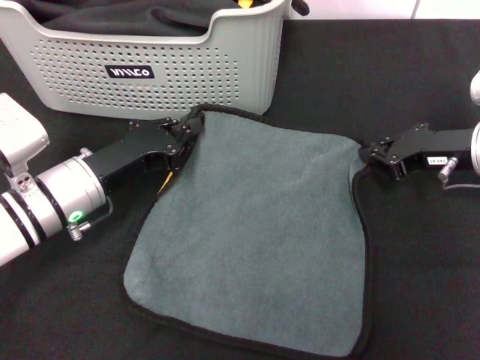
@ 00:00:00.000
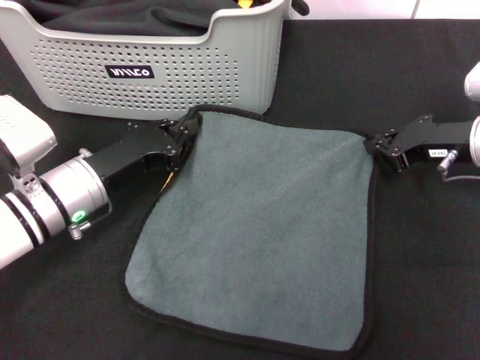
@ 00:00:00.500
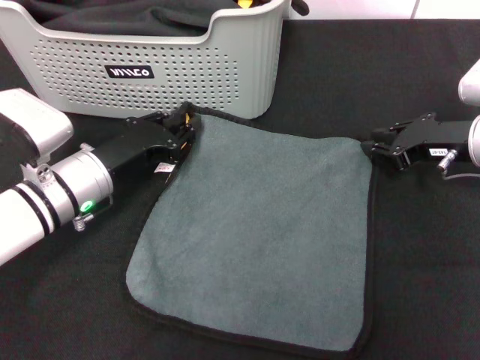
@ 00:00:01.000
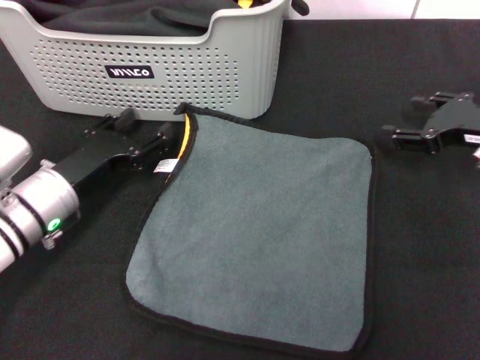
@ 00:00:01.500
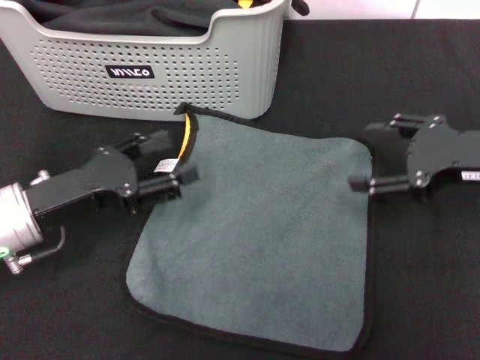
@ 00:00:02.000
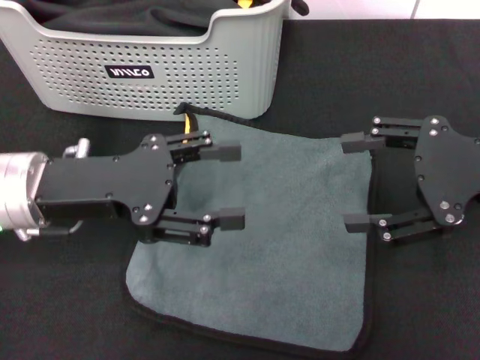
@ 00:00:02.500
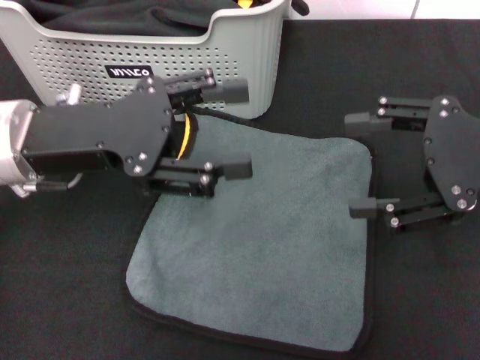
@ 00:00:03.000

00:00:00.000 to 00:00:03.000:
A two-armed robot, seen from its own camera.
Task of the whole recording: pick up the towel from the storage box and lay it flat on the black tablecloth.
00:00:00.000 to 00:00:01.500: The left gripper opens its fingers. Meanwhile the right gripper opens its fingers.
00:00:01.500 to 00:00:03.000: The right gripper is displaced upward and backward by about 15 cm; the left gripper shifts roughly 15 cm upward.

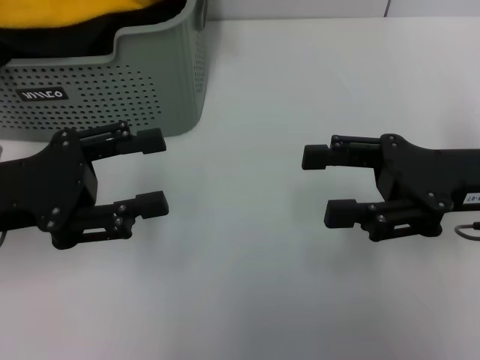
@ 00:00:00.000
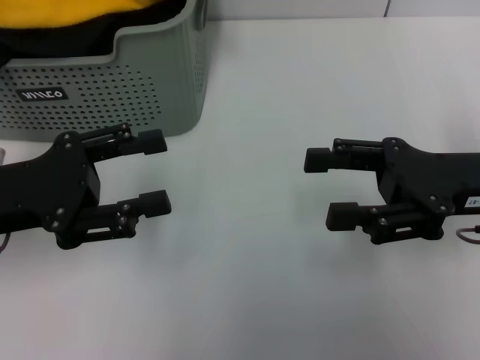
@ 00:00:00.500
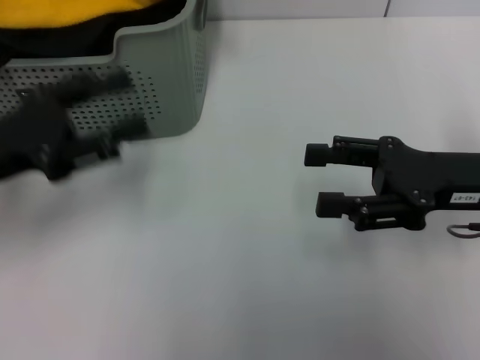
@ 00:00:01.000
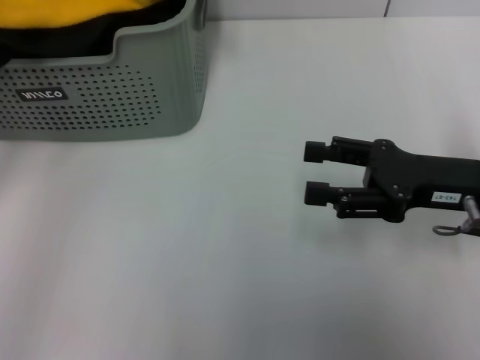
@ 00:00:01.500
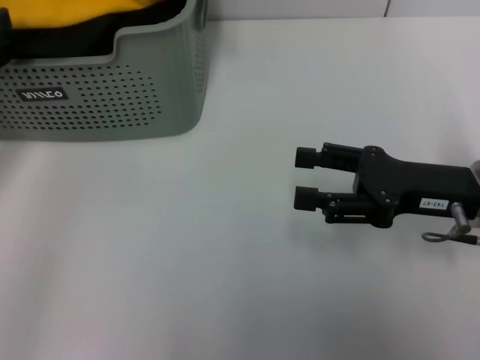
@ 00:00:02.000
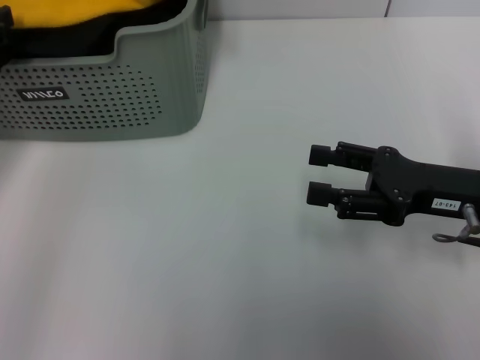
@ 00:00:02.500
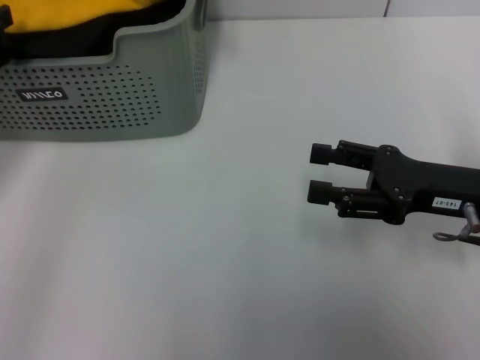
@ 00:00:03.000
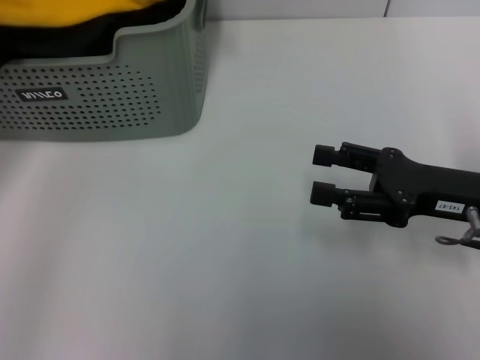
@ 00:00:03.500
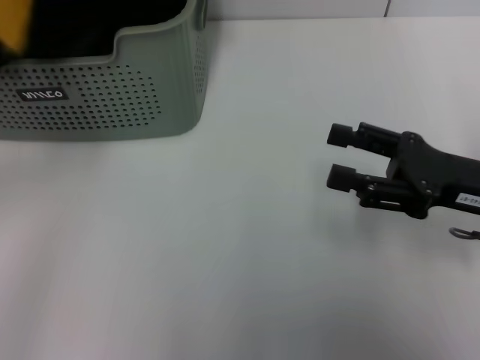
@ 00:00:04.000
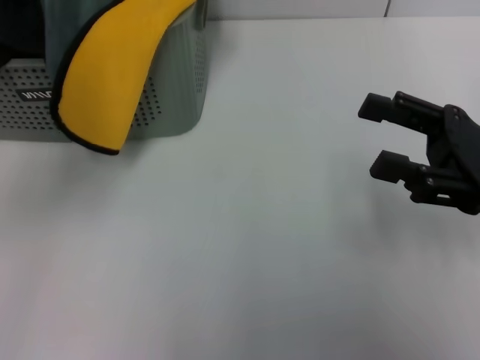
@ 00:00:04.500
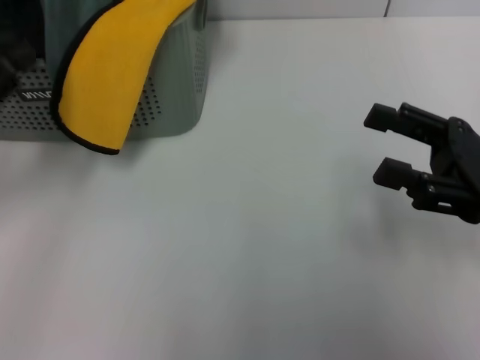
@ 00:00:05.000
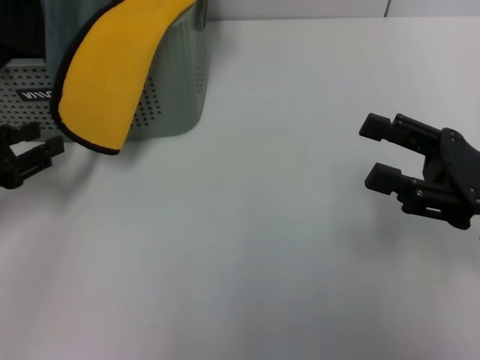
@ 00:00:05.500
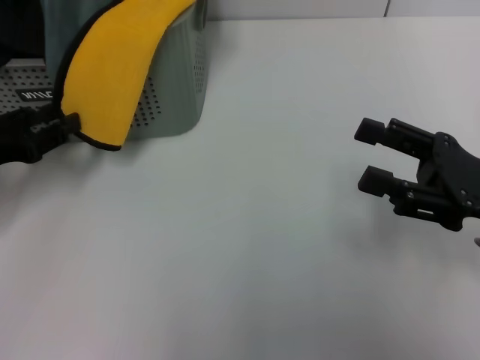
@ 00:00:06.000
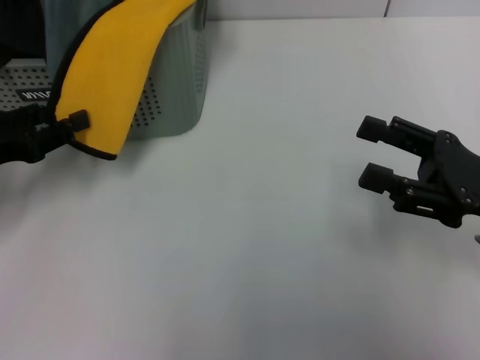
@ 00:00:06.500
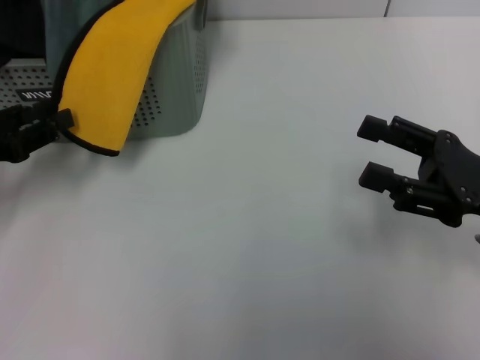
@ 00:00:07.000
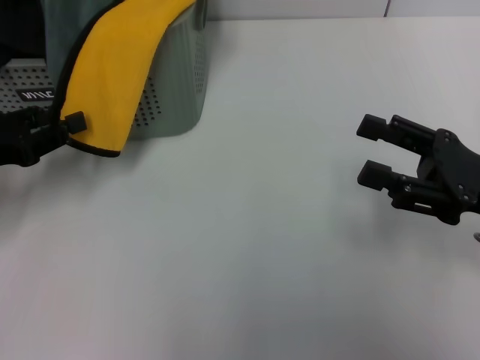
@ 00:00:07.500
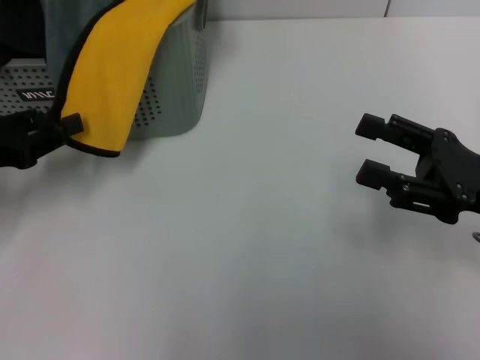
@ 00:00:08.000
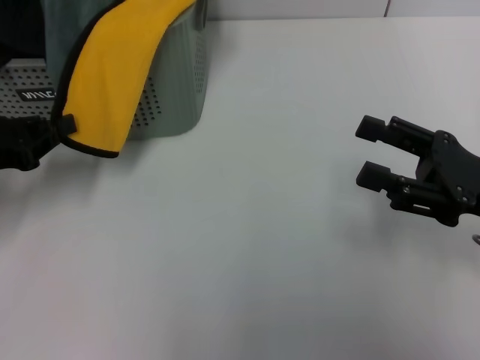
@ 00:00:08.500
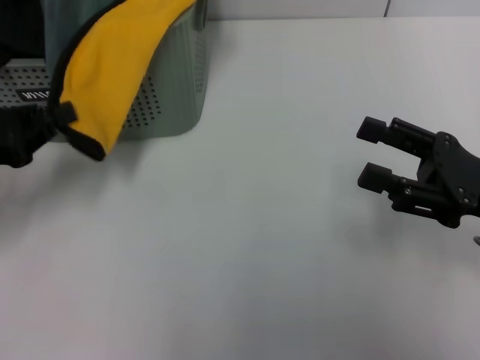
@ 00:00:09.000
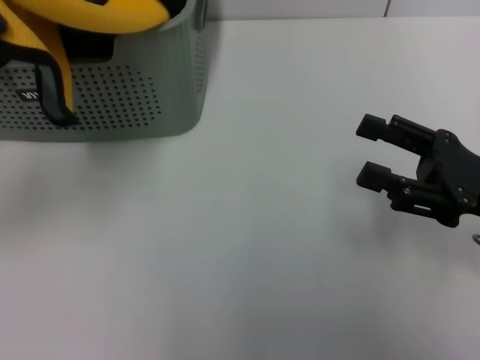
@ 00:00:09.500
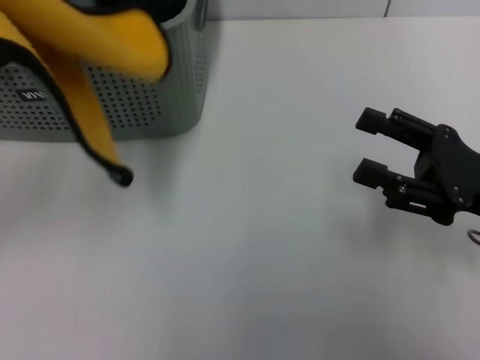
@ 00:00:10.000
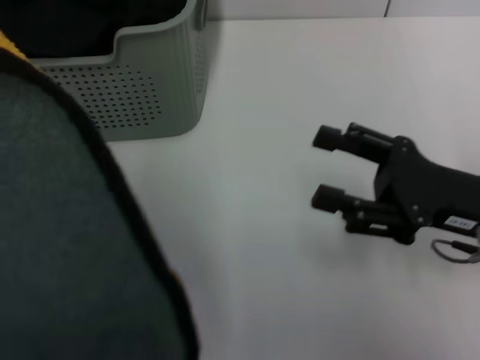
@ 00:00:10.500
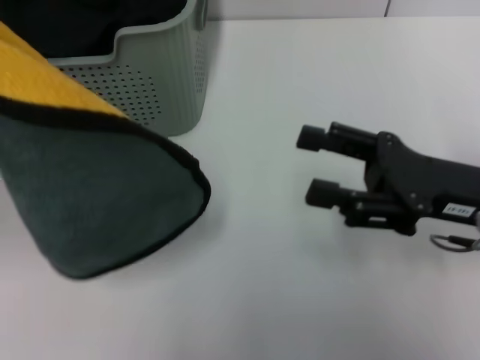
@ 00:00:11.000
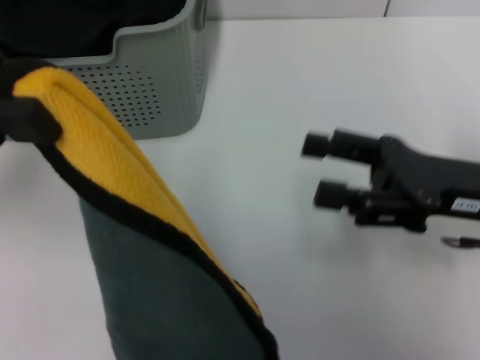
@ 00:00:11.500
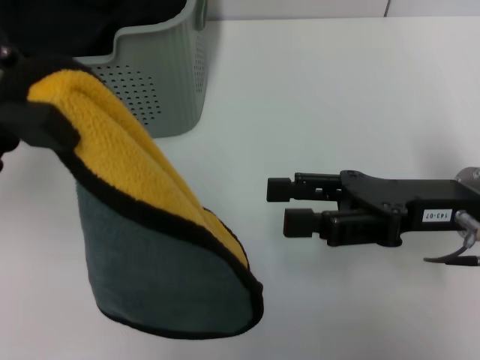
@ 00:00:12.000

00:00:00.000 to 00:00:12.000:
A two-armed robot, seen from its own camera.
Task of the whole recording: pick up the towel from the storage box and lay it flat on the table.
Step, 00:00:00.000 to 00:00:09.000: Pick up a towel with the left gripper.
00:00:00.000 to 00:00:02.000: The left gripper is displaced to the left by approximately 5 cm.
00:00:02.000 to 00:00:04.000: The left gripper travels upward by roughly 5 cm, and closes its fingers.
00:00:04.000 to 00:00:06.000: The left gripper heads downward, covering some 15 cm, and opens up.
00:00:06.000 to 00:00:08.000: The grippers make only small movements.
00:00:08.000 to 00:00:10.000: The left gripper travels upward by approximately 15 cm, and closes.
00:00:10.000 to 00:00:12.000: The left gripper heads to the right, covering some 5 cm. The right gripper shifts approximately 5 cm to the left.

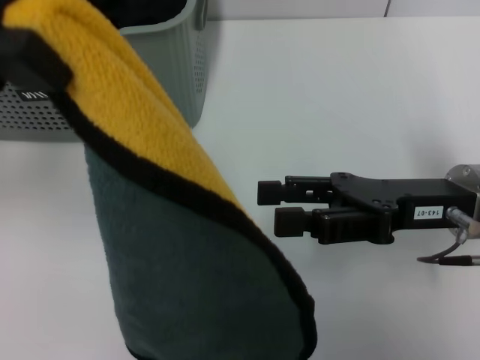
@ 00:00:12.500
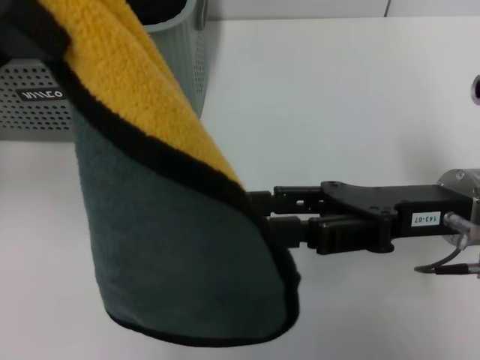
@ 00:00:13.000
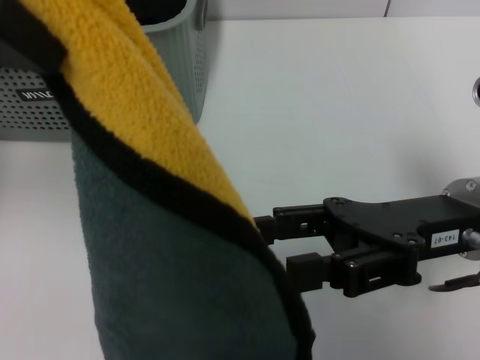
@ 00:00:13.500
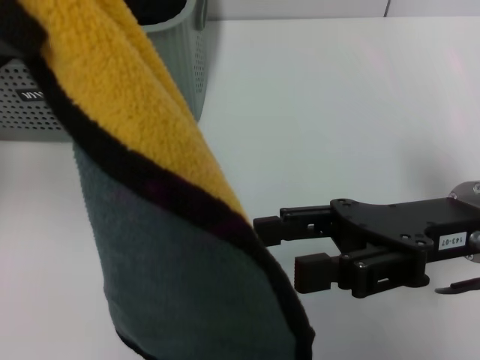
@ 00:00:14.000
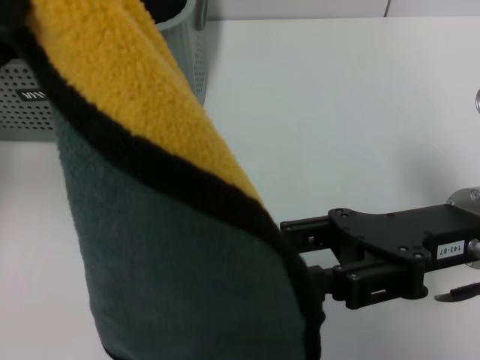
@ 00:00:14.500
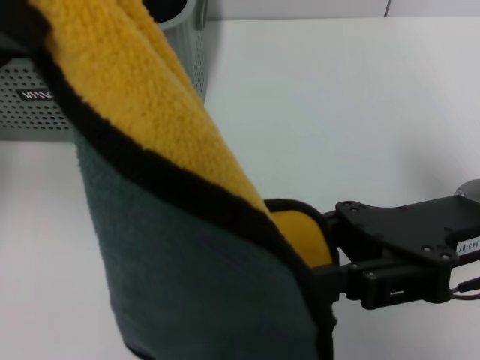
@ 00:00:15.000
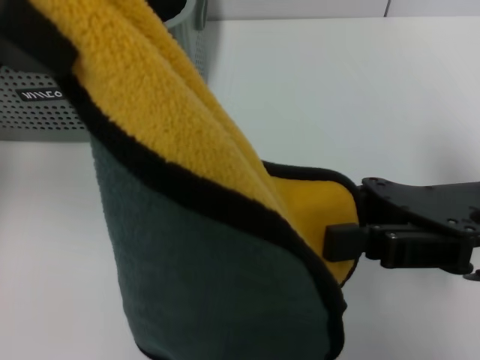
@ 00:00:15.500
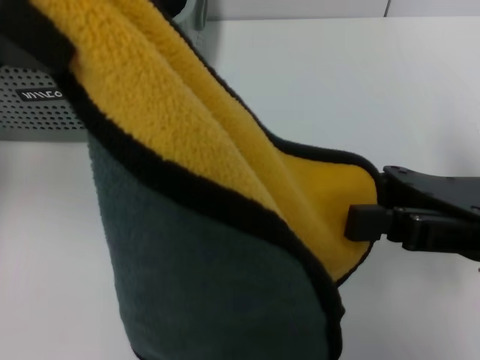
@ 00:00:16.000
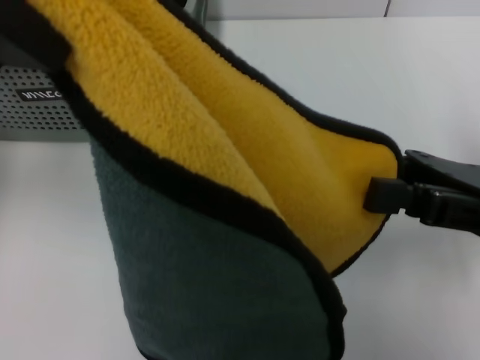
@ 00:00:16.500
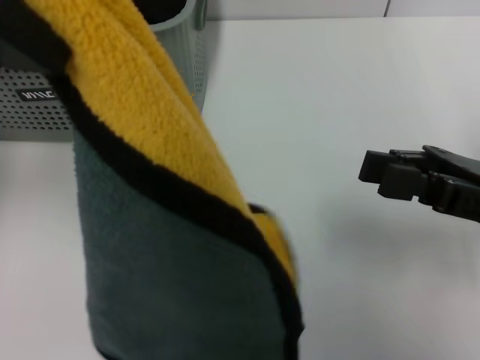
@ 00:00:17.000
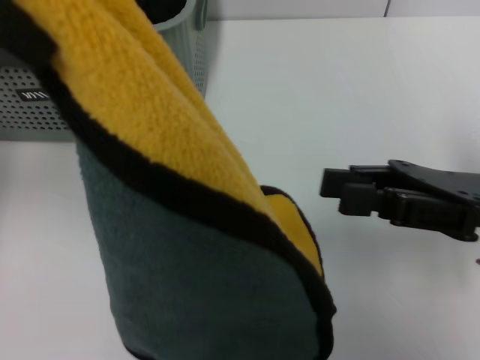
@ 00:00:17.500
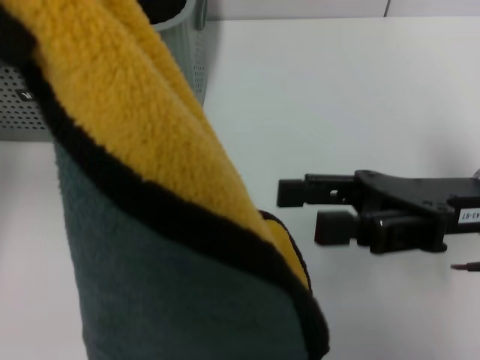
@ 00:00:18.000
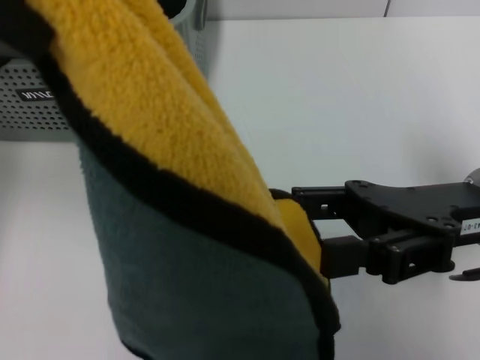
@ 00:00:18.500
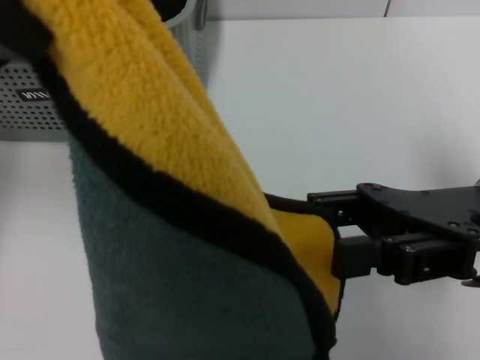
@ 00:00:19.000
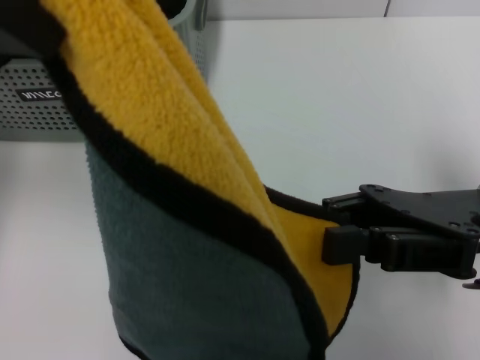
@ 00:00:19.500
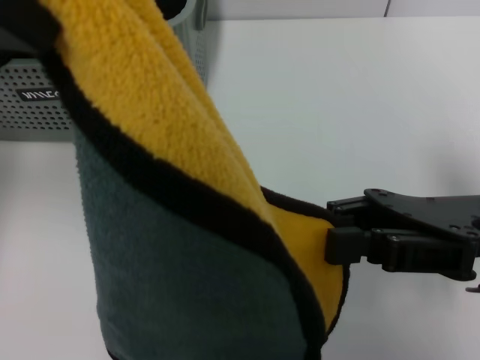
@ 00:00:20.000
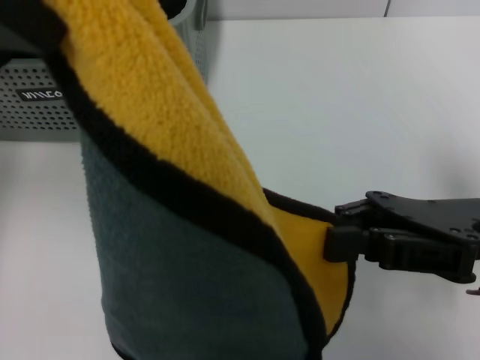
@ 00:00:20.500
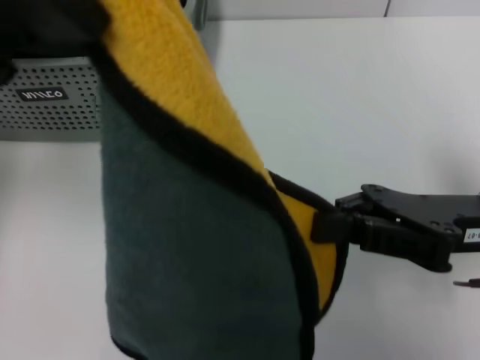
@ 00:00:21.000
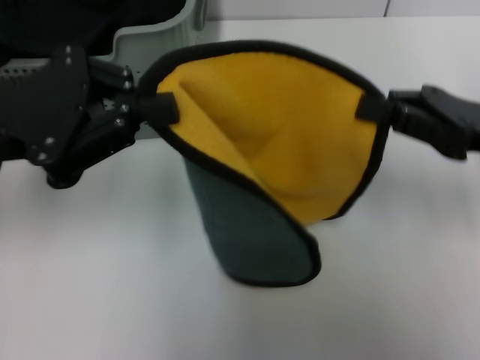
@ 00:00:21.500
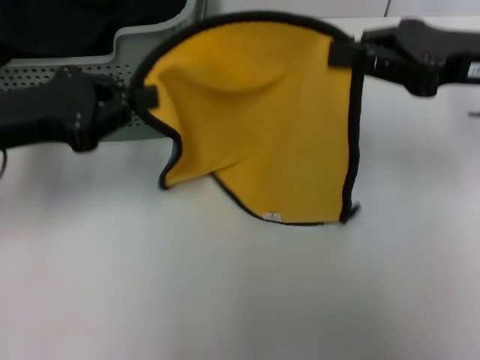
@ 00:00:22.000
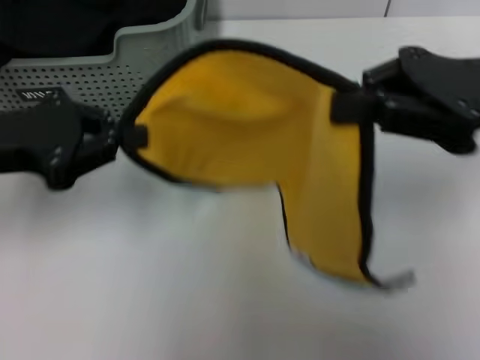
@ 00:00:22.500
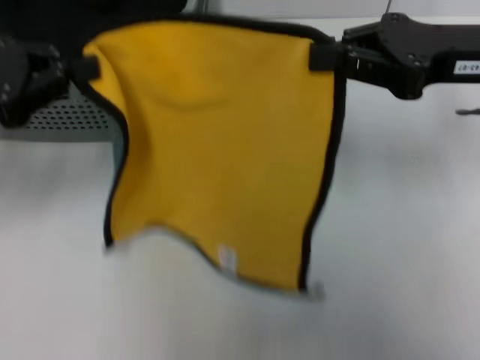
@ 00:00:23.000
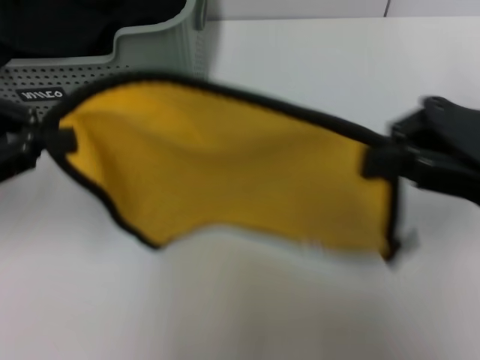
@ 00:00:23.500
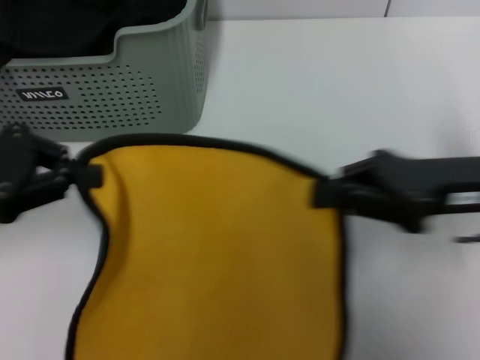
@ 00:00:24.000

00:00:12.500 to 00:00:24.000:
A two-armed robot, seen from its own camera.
Task of the whole recording: pick up the towel from the storage box and lay it flat on the table.
Step, 00:00:12.500 to 00:00:20.500: Spread the towel flat with the left gripper.
00:00:14.500 to 00:00:16.500: The right gripper closes up.
00:00:16.500 to 00:00:18.500: The right gripper opens up.
00:00:18.500 to 00:00:20.000: The right gripper closes up.
00:00:20.000 to 00:00:22.000: The right gripper is displaced forward and upward by approximately 10 cm; the left gripper shifts roughly 15 cm downward and to the left.
00:00:22.000 to 00:00:24.000: The right gripper is displaced downward and backward by approximately 10 cm.
